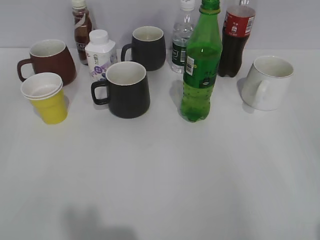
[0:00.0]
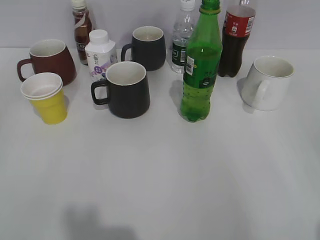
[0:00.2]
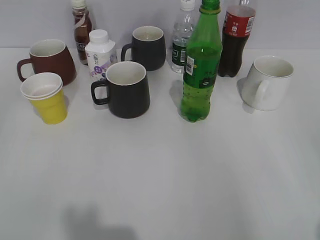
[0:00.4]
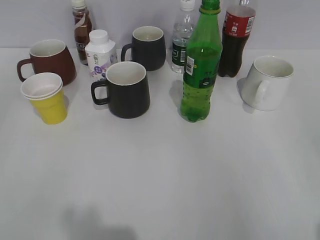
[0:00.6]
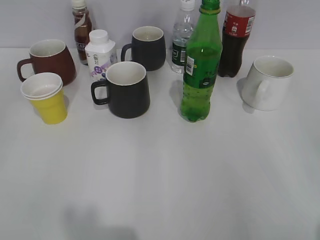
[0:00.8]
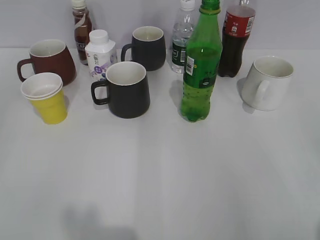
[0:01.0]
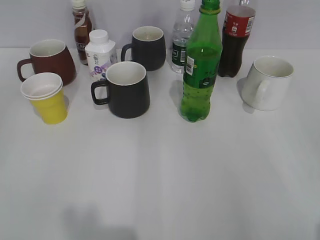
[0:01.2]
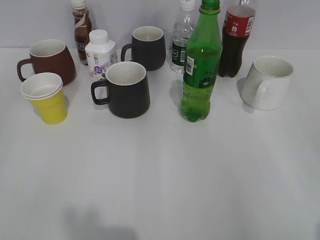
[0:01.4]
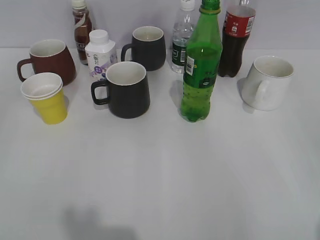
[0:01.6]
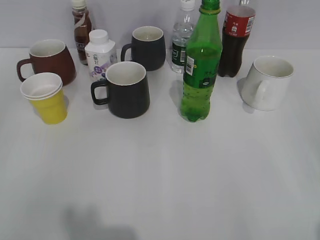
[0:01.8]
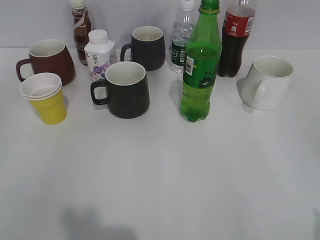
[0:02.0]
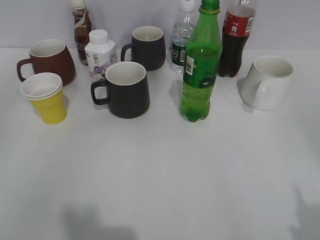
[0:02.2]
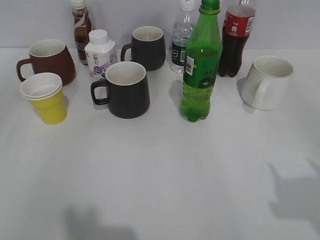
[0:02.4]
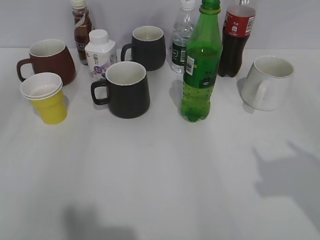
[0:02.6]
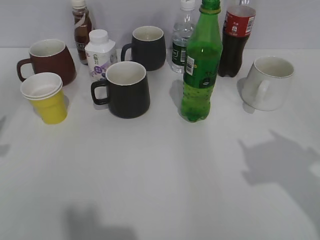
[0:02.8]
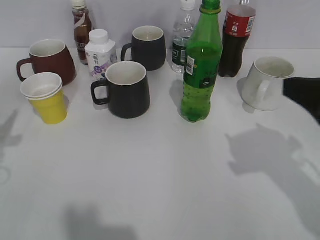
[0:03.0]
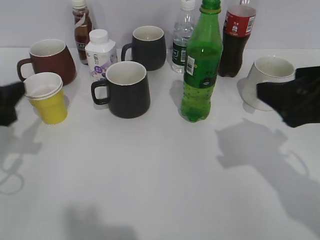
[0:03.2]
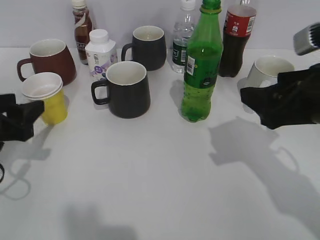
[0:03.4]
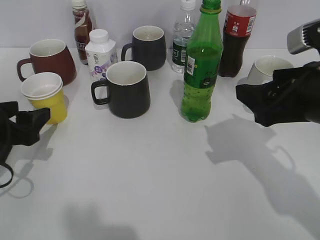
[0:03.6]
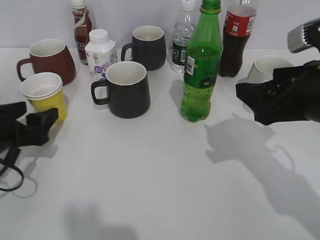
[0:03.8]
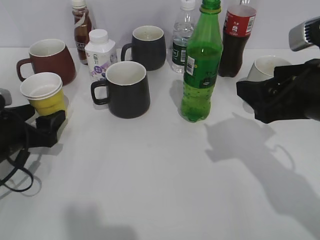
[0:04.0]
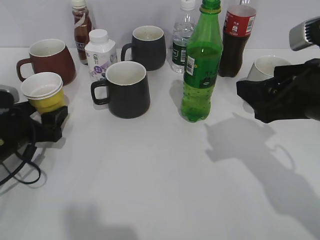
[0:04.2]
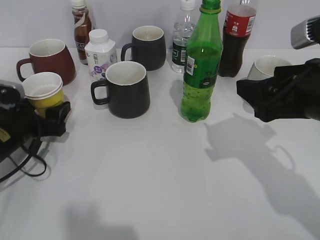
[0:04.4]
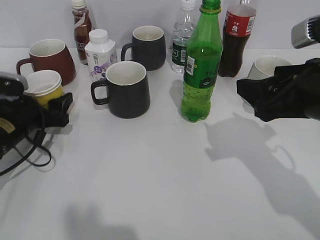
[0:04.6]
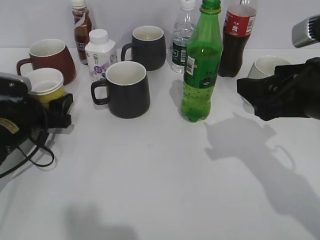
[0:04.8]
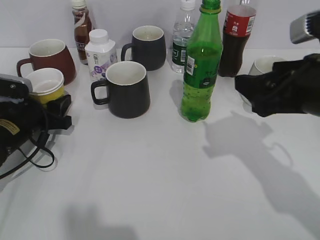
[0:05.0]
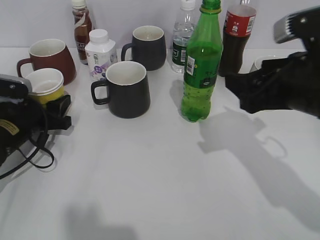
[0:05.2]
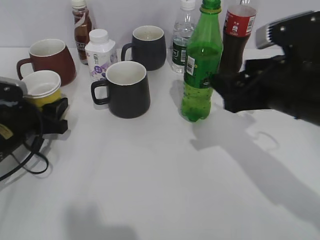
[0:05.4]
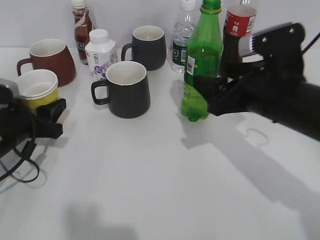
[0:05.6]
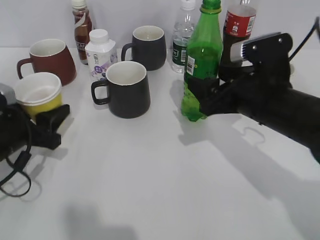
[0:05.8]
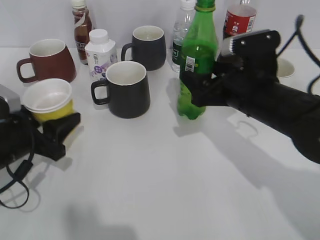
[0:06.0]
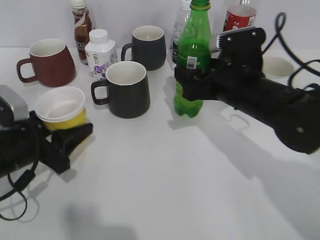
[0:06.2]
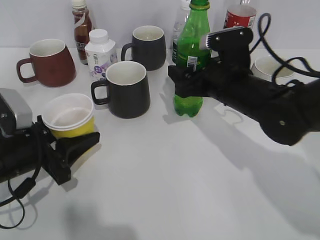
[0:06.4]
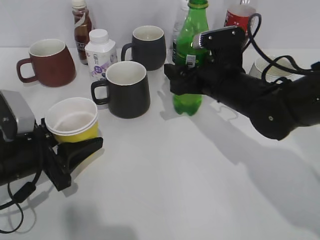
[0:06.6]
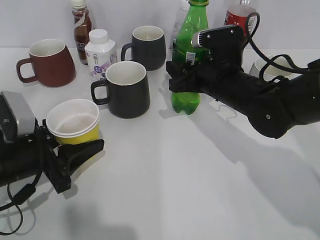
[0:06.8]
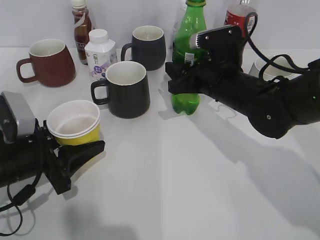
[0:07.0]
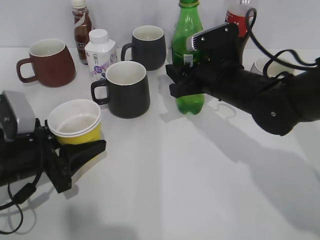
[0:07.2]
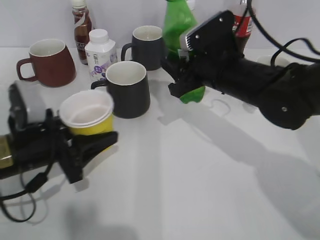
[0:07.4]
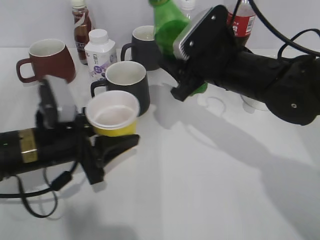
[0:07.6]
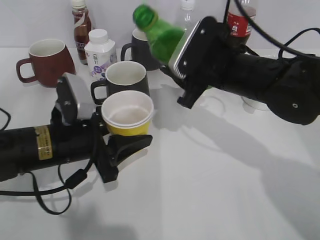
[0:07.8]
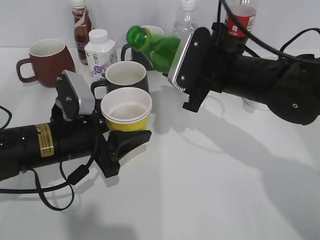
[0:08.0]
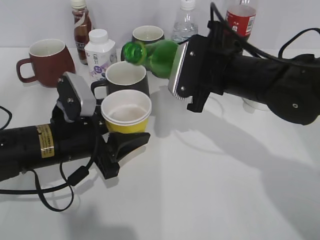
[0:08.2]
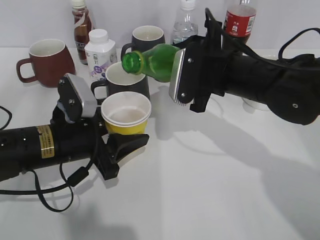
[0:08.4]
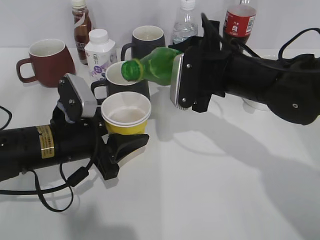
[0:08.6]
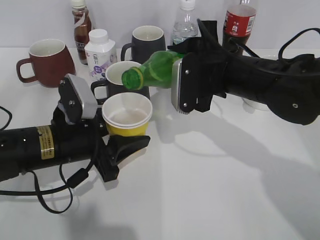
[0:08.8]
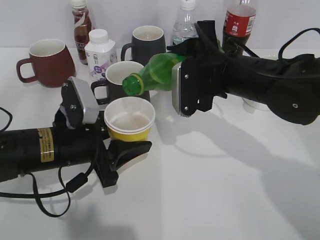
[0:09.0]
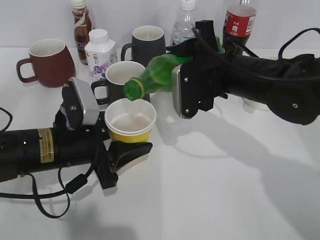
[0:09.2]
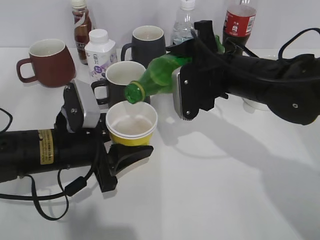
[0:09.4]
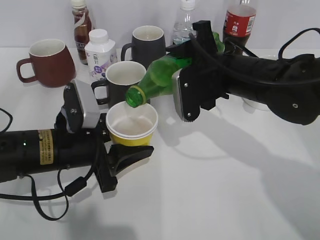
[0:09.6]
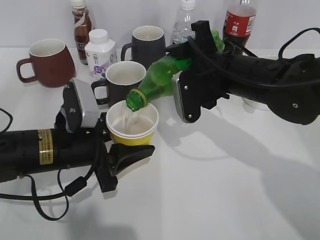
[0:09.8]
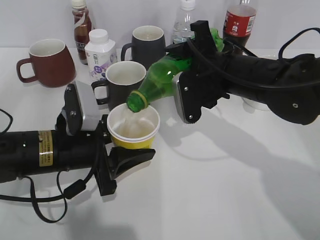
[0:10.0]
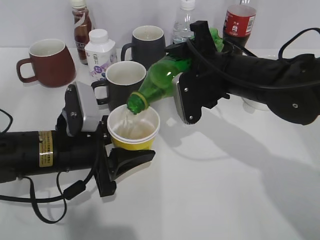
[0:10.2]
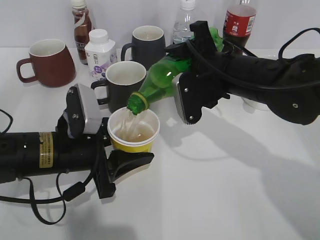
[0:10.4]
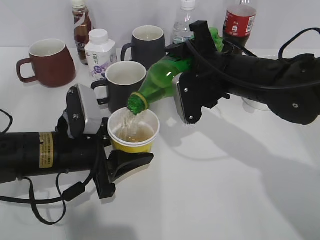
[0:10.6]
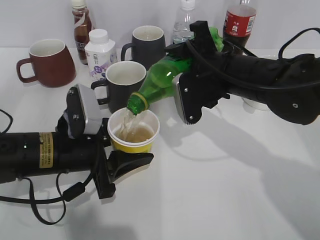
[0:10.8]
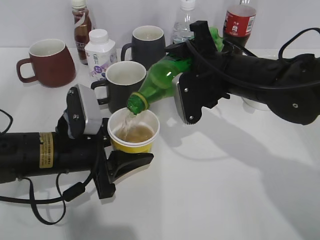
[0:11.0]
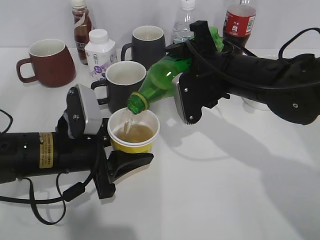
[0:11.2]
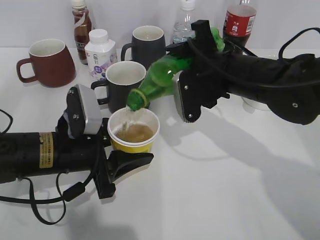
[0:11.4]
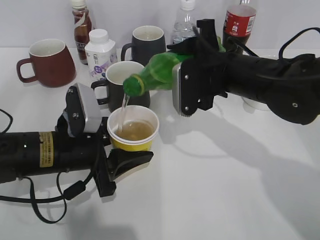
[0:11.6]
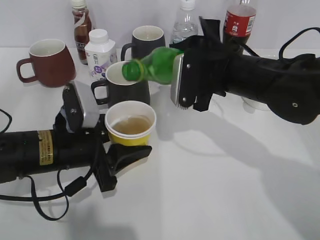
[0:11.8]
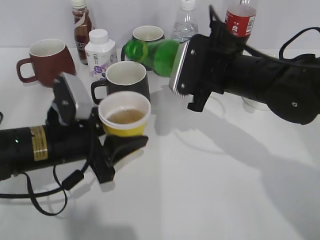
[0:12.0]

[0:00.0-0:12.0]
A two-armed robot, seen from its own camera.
Step, 2.0 to 4.2 s: Grasp the yellow paper cup with left gripper.
Step, 4.4 to 6.8 s: Grasp the bottle with sprite with right gripper.
Step, 7.0 to 11.8 s: Pour the sprite from bottle to cup with right gripper.
1.6 to 3.0 s: The right gripper travels forward by some 15 cm.
3.0 to 4.4 s: The right gripper shifts by about 5 cm; the left gripper goes approximately 15 cm downward, forward and to the right, and opens its fingers.
4.4 to 6.0 s: The right gripper is displaced forward, downward and to the left by approximately 10 cm, while the left gripper shifts by some 5 cm, and closes.
6.0 to 7.6 s: The left gripper travels to the right by approximately 5 cm. The right gripper changes place by roughly 5 cm, and closes its fingers.
9.0 to 10.4 s: There are only small adjustments of the grippers.

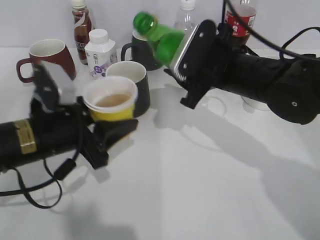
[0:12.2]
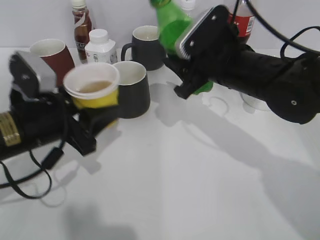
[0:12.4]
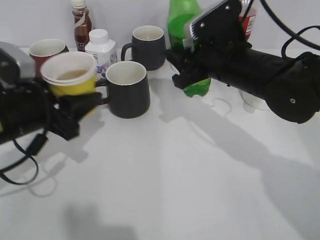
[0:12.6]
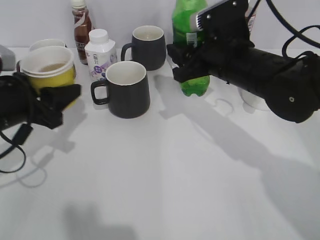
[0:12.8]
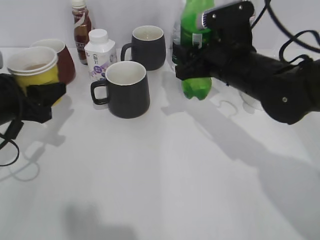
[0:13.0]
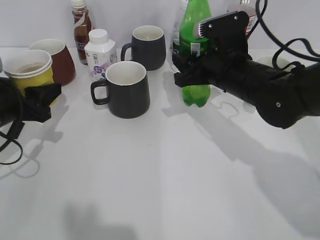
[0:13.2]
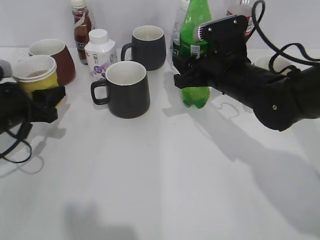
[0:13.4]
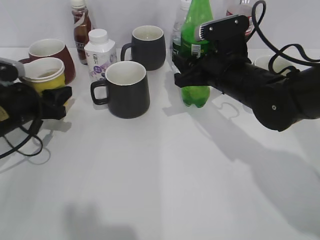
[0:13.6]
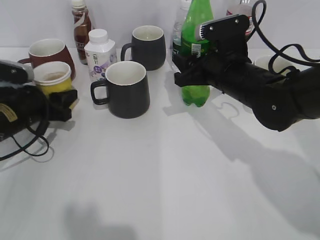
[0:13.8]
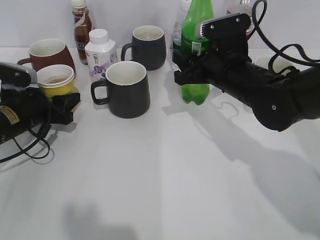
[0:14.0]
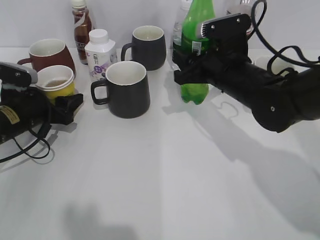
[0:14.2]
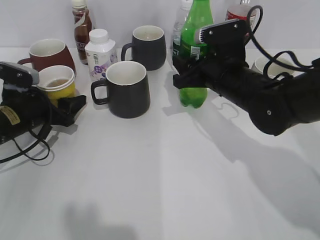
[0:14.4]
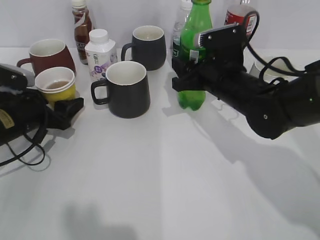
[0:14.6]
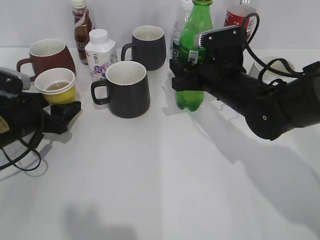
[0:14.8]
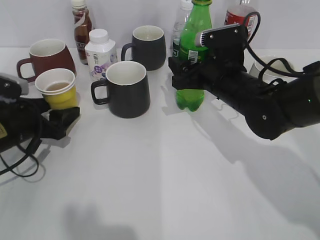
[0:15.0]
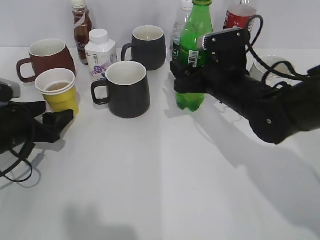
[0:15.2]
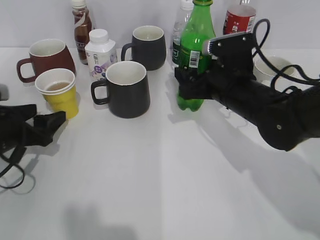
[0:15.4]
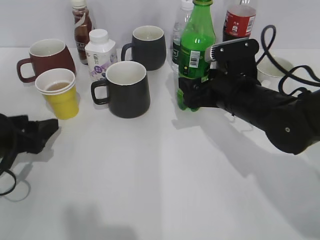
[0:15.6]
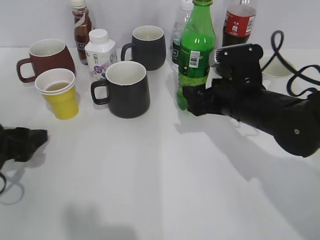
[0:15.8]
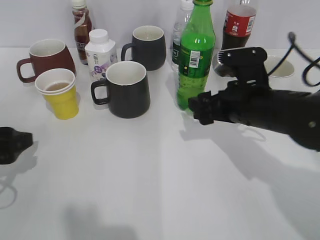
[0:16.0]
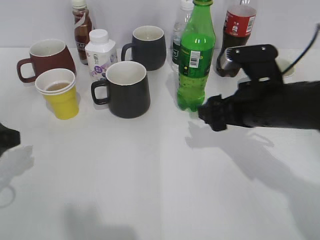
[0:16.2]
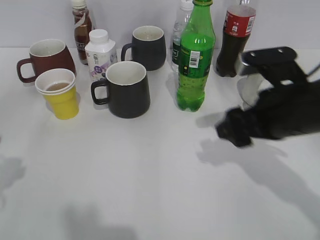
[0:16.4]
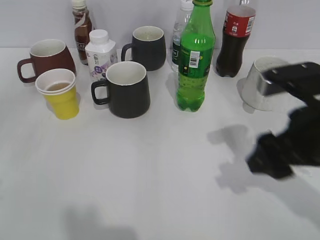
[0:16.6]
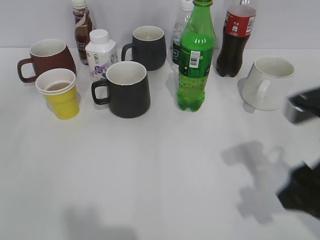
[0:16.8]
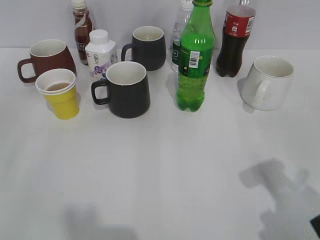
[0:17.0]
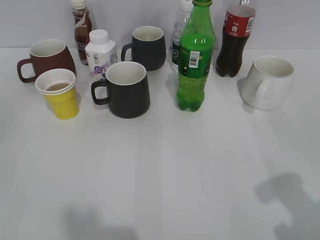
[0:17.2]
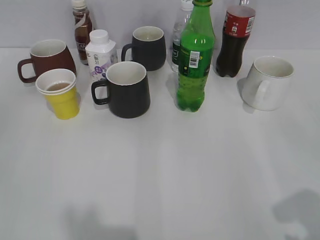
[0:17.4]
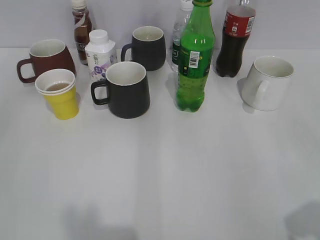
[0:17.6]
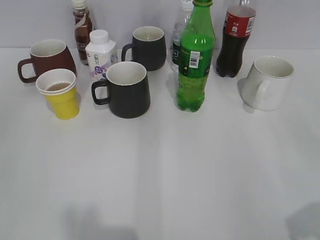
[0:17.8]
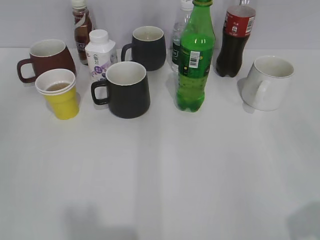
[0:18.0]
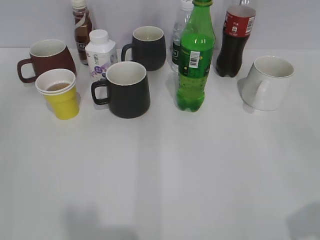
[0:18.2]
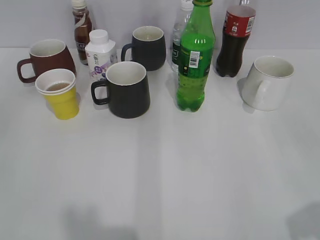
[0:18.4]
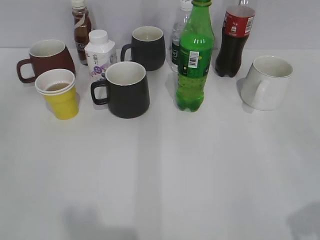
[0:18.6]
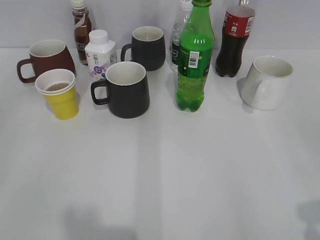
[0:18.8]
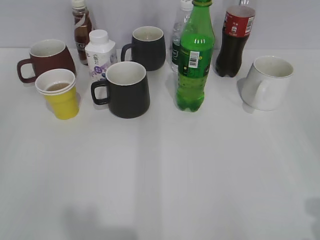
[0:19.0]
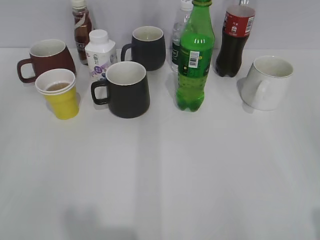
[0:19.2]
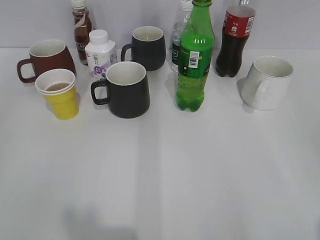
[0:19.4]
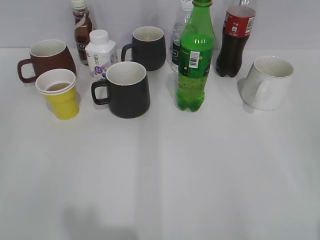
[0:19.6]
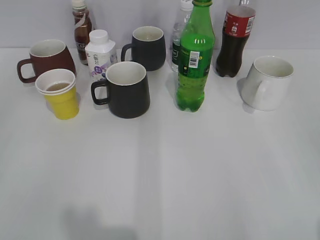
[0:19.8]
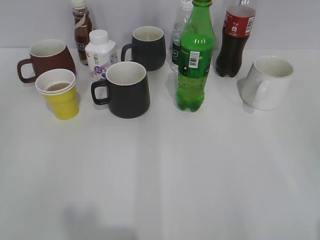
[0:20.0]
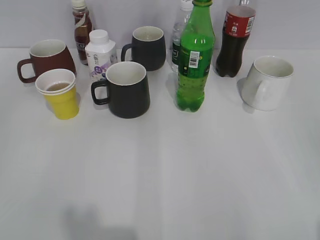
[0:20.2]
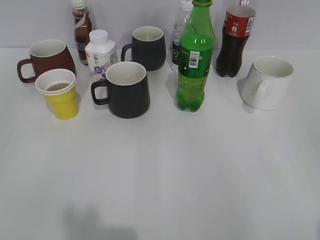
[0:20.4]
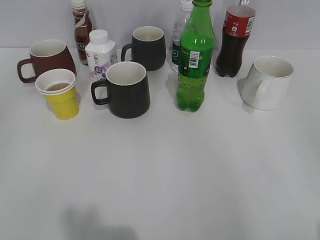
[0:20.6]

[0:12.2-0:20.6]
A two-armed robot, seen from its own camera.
Step, 12.2 to 13.2 s: Place the yellow paper cup on the table with left gripper.
Step, 13.4 to 15.8 s: Place the sprite bottle on the table with right gripper.
12.2 to 13.6 s: The left gripper travels to the left and forward by approximately 15 cm.
13.6 to 15.0 s: The left gripper opens its fingers. Meanwhile the right gripper opens.
15.0 to 16.4 s: The left gripper heads upward and backward, covering some 20 cm. The right gripper heads backward and to the right, covering approximately 10 cm.
16.4 to 17.8 s: The left gripper shifts some 15 cm backward; the right gripper moves backward and to the right, approximately 25 cm.

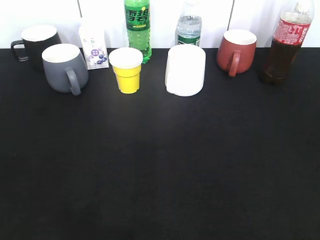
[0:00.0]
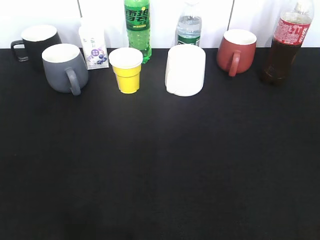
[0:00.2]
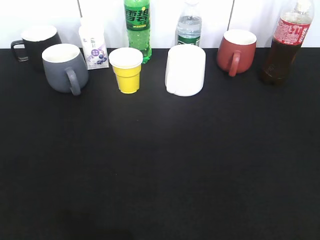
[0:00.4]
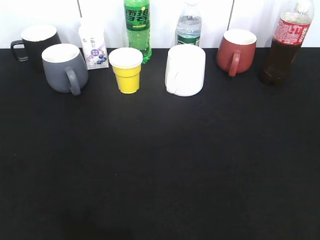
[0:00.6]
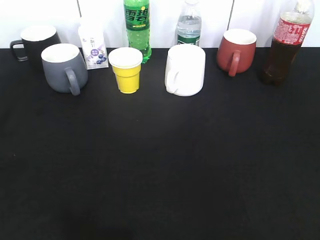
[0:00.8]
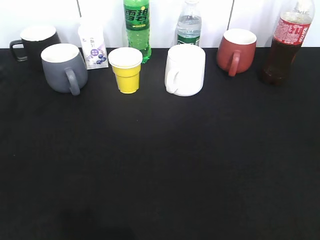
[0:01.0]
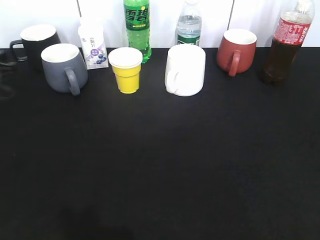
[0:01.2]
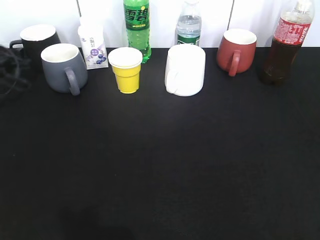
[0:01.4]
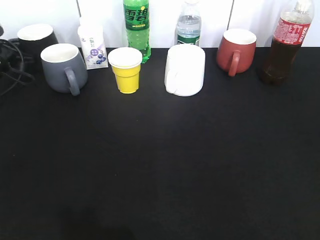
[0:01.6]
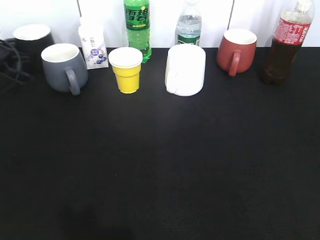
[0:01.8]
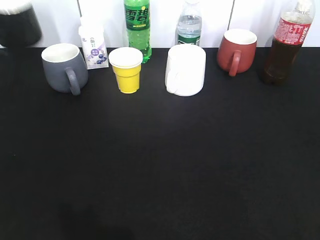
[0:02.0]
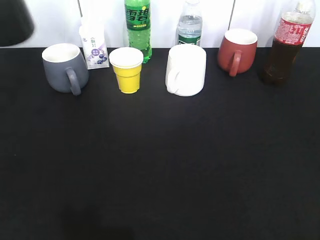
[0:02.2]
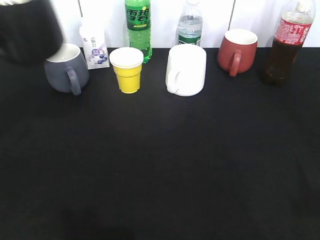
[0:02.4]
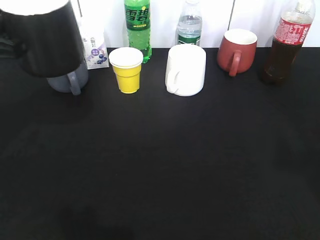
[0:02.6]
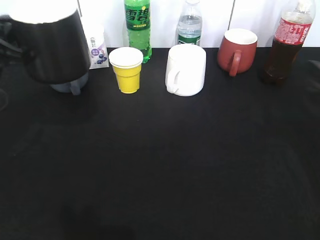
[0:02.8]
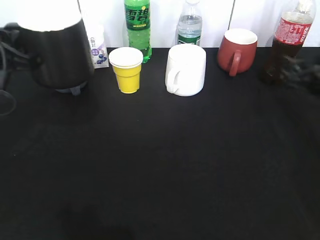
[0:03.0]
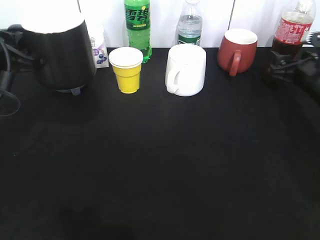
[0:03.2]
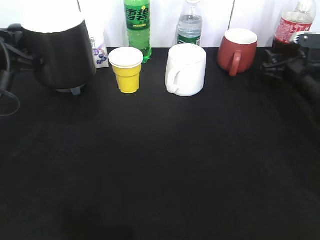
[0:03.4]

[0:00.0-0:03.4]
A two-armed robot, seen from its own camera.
Step, 1.8 to 2.6 s: Lift the black cup with left gripper.
0.0 to 1.6 s: The left gripper heads forward, covering roughly 50 cm, and closes up.
1.6 to 3.4 s: The right gripper travels forward and downward by approximately 40 cm. The left gripper heads backward, upward and to the right, covering some 30 cm.
